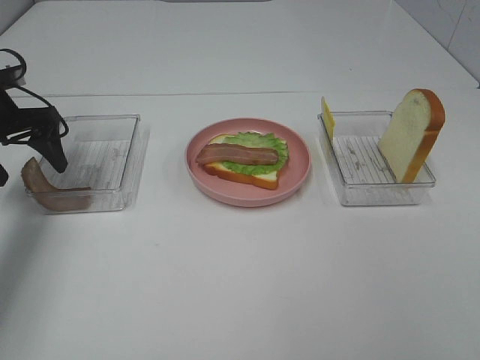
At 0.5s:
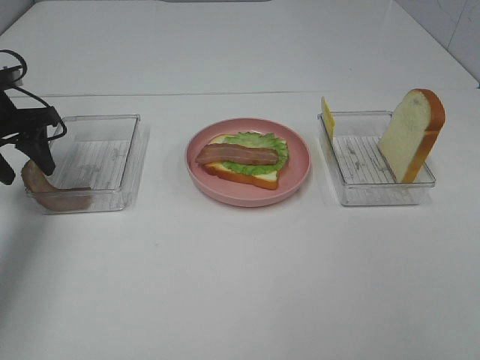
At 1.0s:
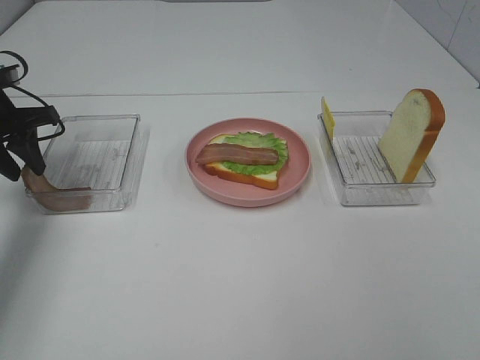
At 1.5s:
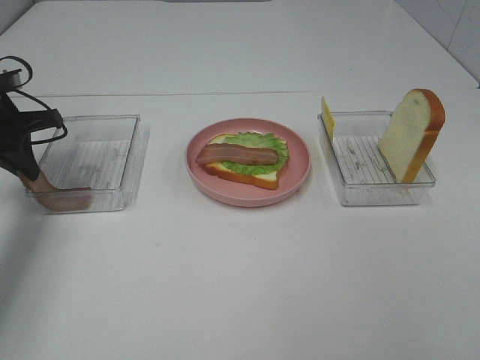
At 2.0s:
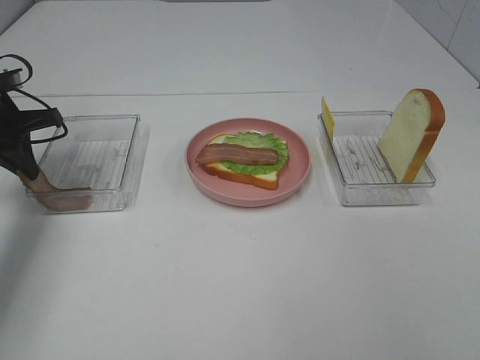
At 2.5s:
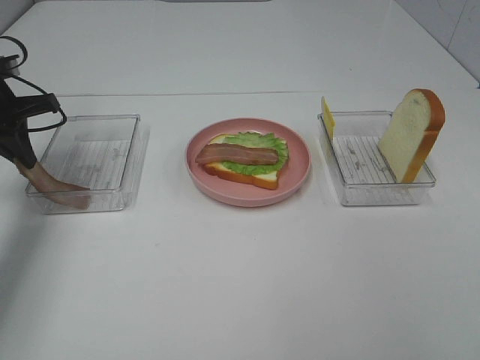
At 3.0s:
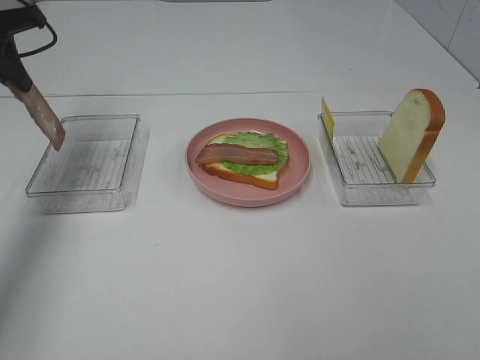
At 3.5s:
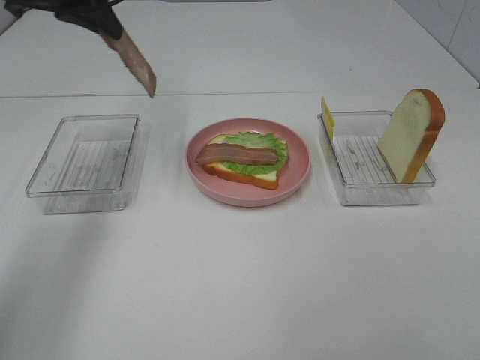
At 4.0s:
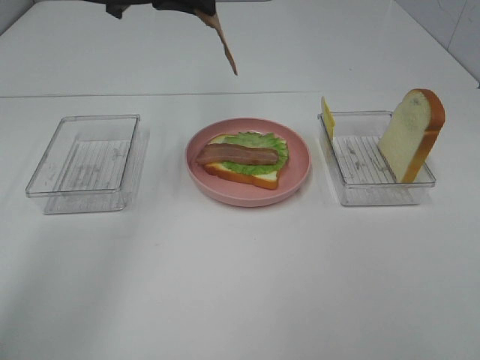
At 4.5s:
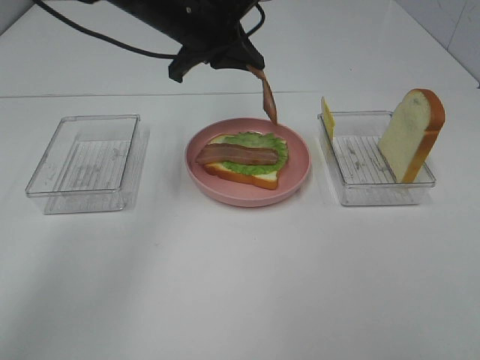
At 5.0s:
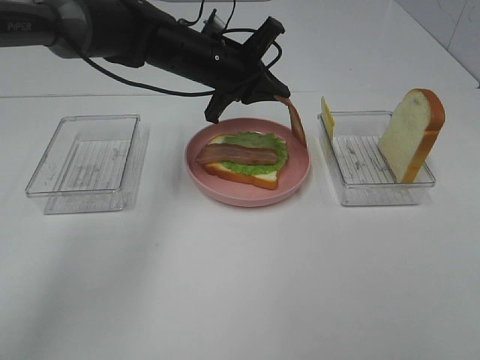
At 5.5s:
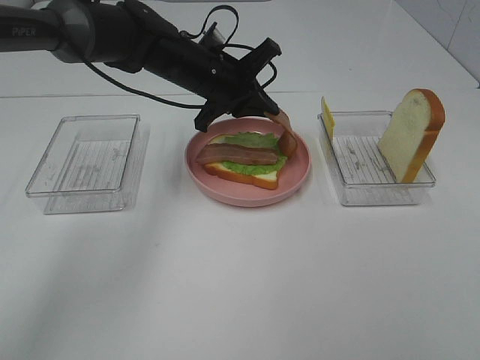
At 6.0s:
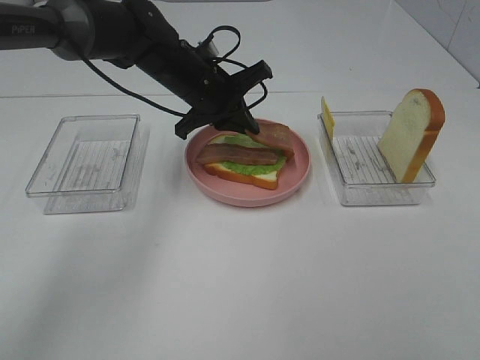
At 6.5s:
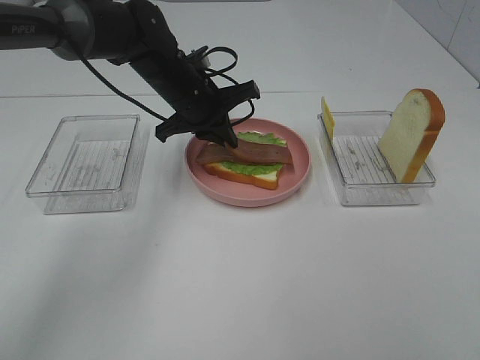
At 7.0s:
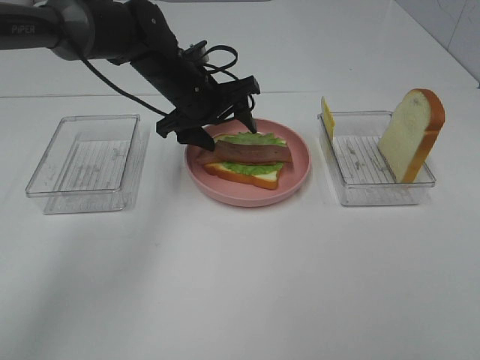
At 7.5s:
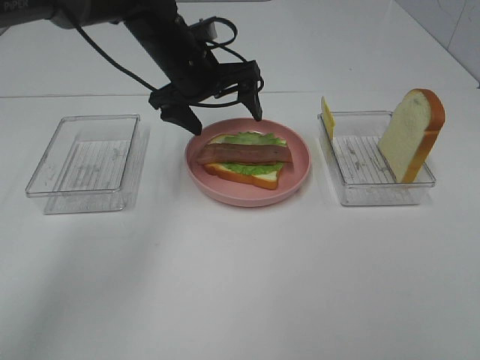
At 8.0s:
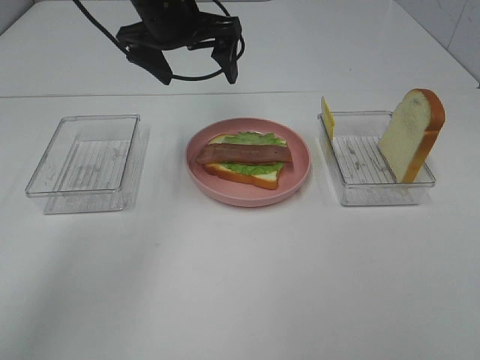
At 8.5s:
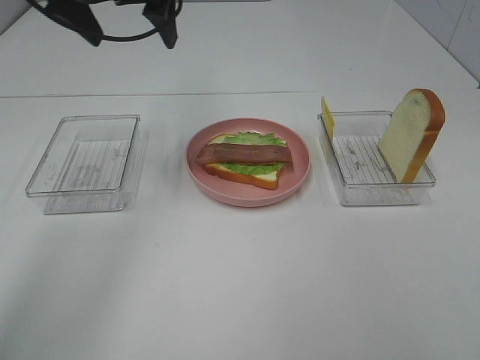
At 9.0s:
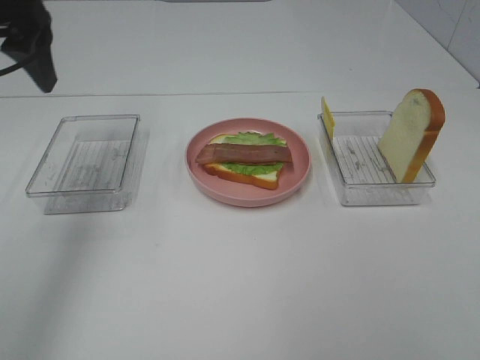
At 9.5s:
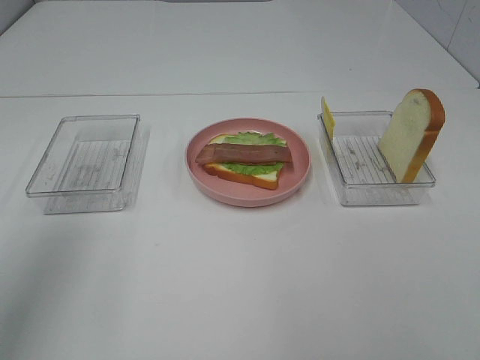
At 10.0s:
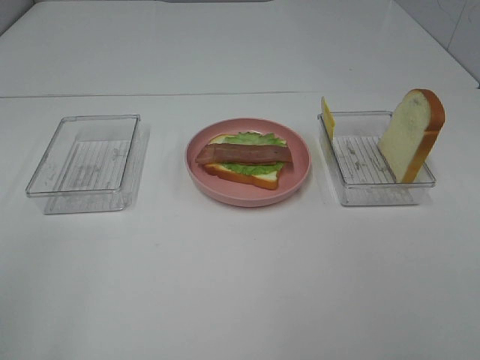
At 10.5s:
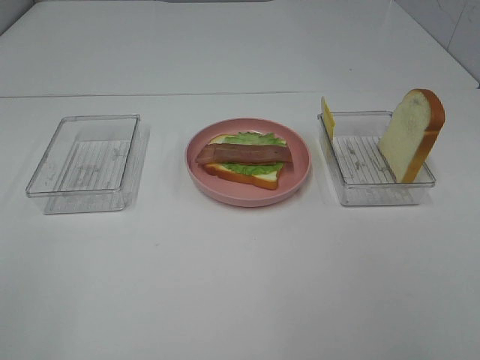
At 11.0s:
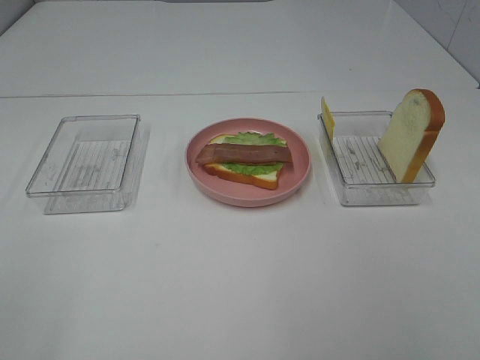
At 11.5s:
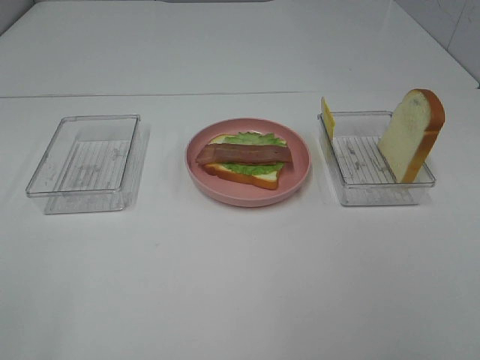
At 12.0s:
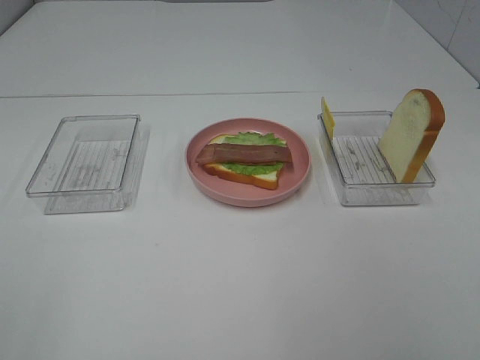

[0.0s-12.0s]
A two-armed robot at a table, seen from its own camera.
Task of the whole recording: Make sandwiches.
Step, 0.0s to 2.0s: Left hand:grab the bacon.
Step, 2.5s to 7.0s: Left hand:place bacon on bacon.
0.0s to 2.0s: The left gripper closes its fingers.
2.0s to 4.0s: The left gripper is displaced to the right and upward by about 25 cm.
4.0s to 6.0s: The left gripper travels downward by some 15 cm.
6.0s to 8.0s: The left gripper shifts approximately 10 cm upward, and opens its fingers.
8.0s to 10.0s: The left gripper is displaced backward and to the left by roughly 50 cm.

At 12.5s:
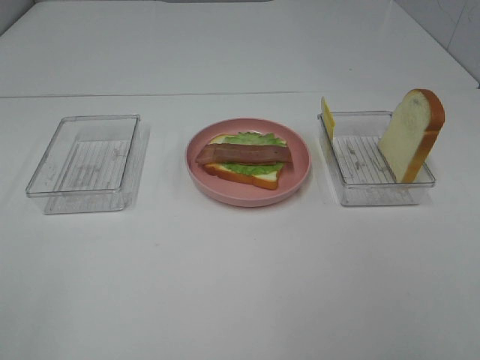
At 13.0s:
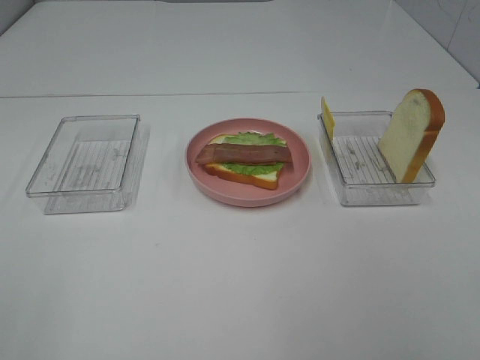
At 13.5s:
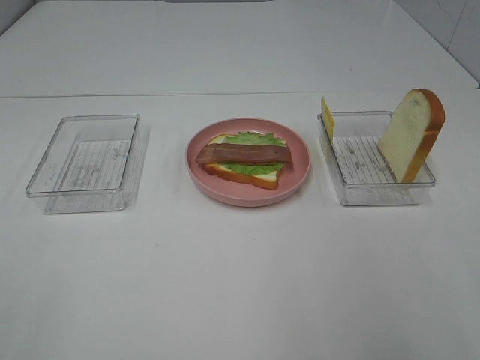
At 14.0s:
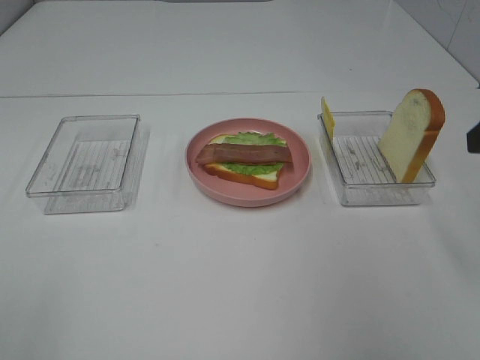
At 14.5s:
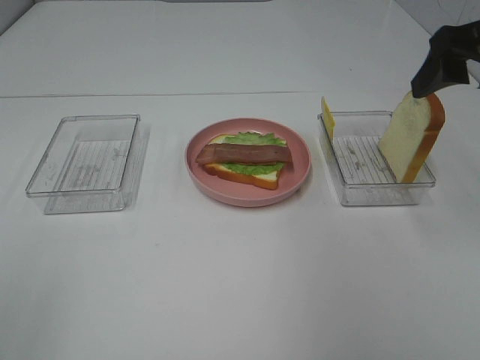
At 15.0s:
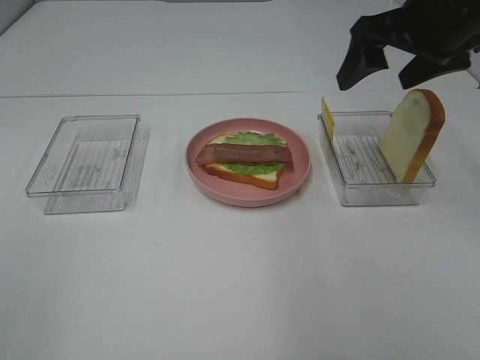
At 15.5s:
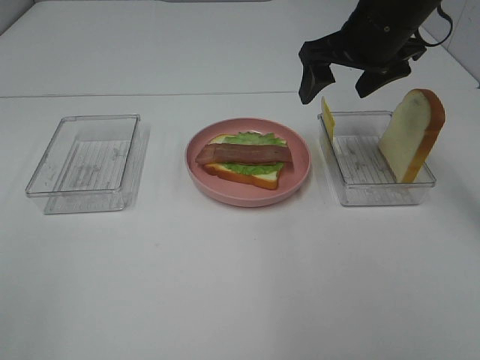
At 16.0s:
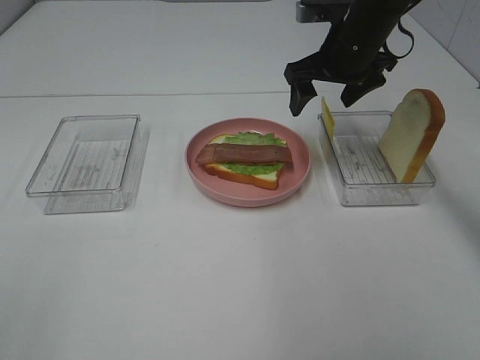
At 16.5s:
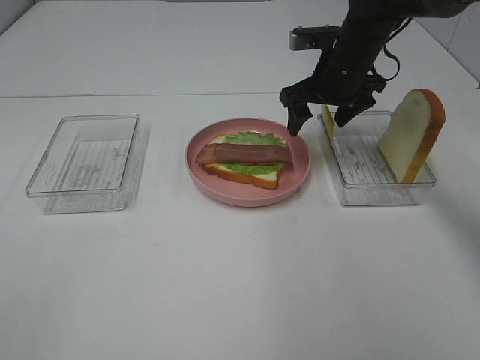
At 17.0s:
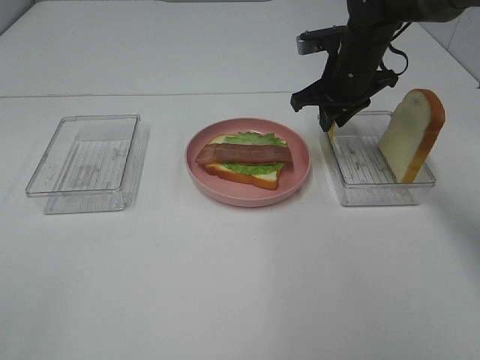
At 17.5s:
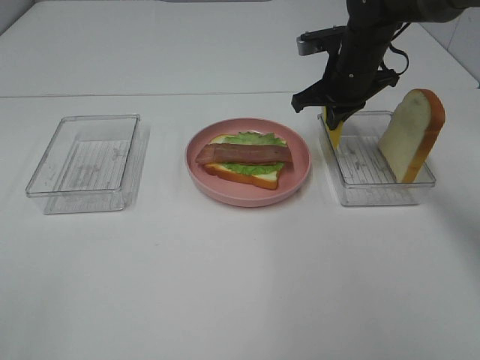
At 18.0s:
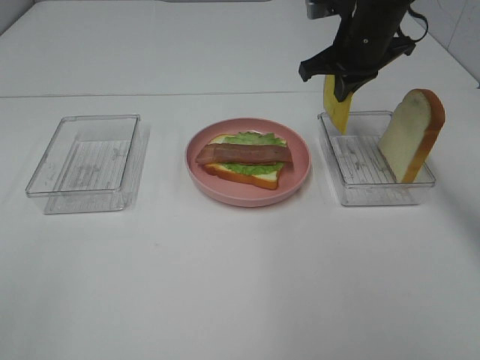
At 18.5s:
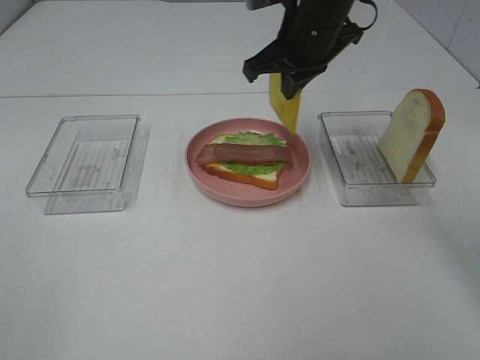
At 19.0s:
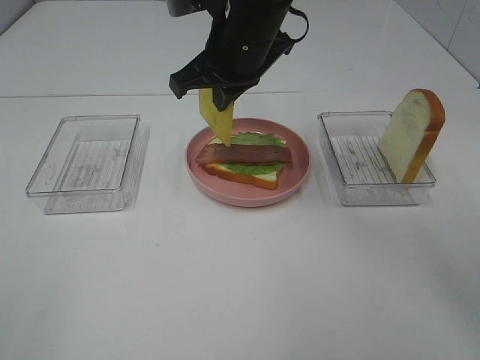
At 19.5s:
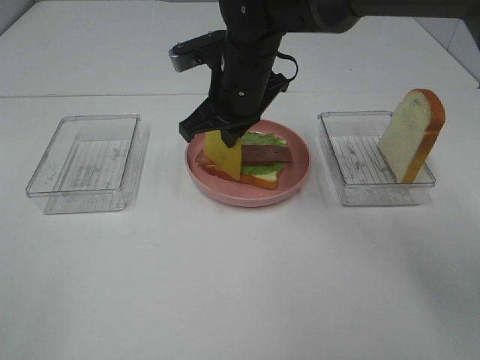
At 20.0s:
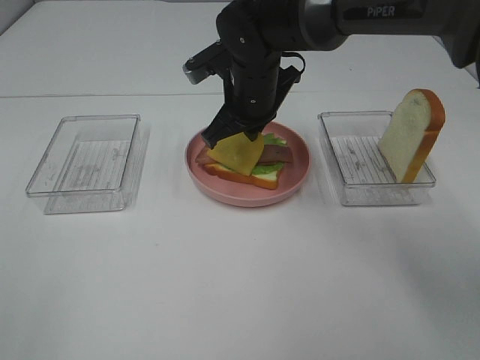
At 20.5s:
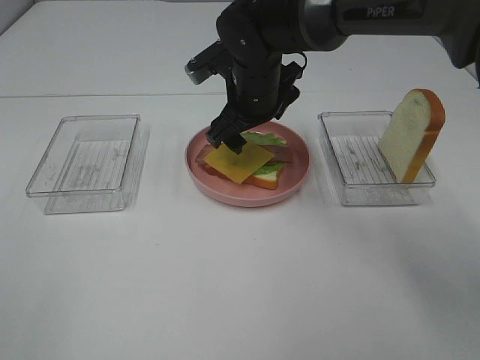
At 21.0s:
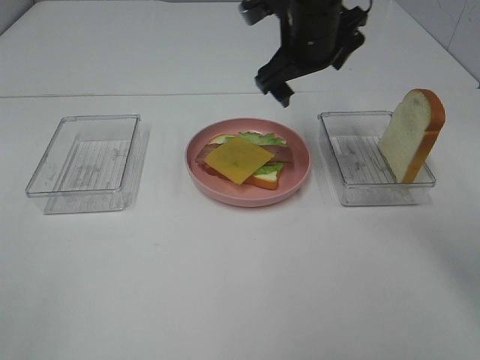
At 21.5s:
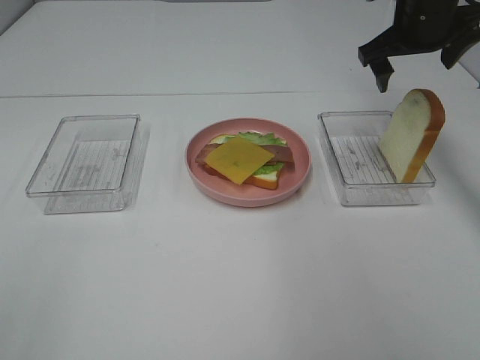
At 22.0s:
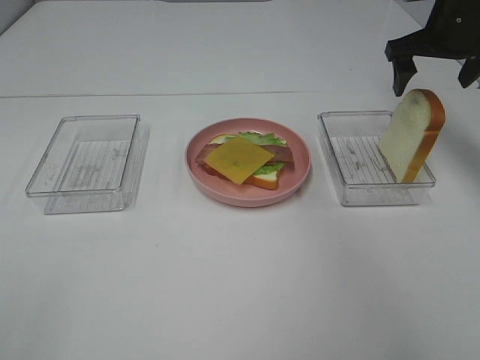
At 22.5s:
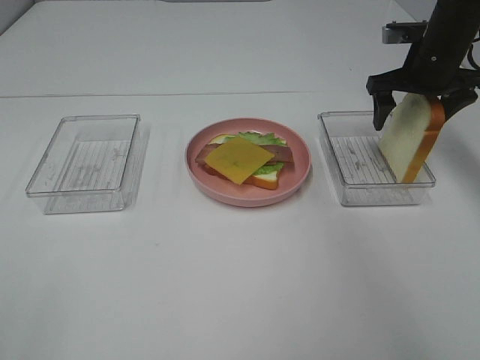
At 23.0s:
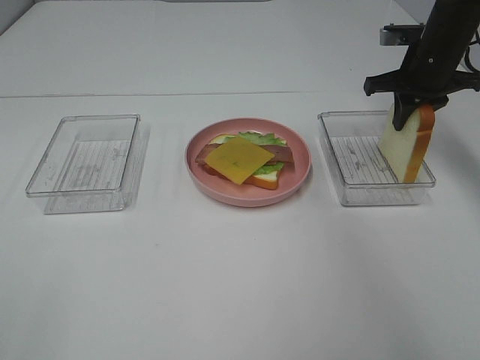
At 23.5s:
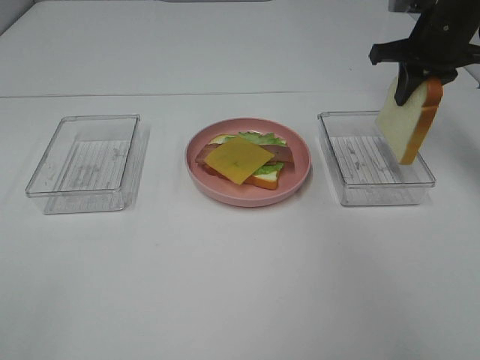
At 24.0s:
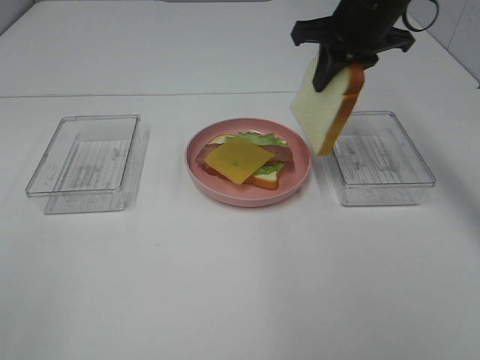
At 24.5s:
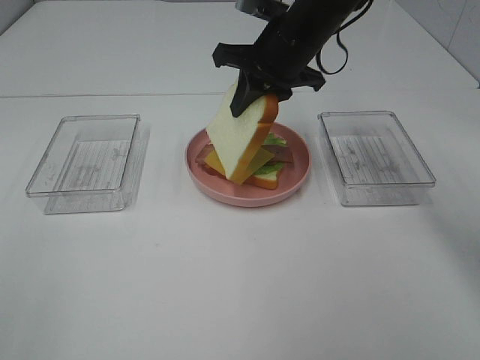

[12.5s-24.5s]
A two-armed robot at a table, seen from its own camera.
Task of the whole recording: Make sandwiches.
Step, 12.5s to 17.5s: Right hand:grab the cheese slice.
Step, 18.0s to 20.5s: Right hand:place the cheese slice on top of the bacon.
Step, 21.0s to 23.0s: Right hand:grab the bread slice.
12.5s to 14.5s: The right gripper moves forward, roughly 30 cm.
14.5s to 16.5s: The right gripper moves forward, downward and to the left, roughly 25 cm.
16.5s to 18.5s: The right gripper goes some 10 cm upward and to the left, and closes up.
18.5s to 20.5s: The right gripper shifts approximately 10 cm downward and to the left, and opens up.
20.5s to 22.5s: The right gripper goes some 25 cm to the right.
22.5s to 24.5s: The right gripper goes some 20 cm to the left, and closes up.

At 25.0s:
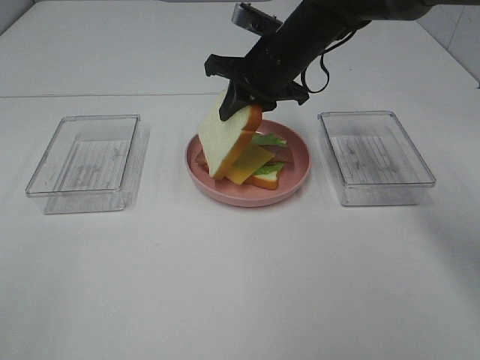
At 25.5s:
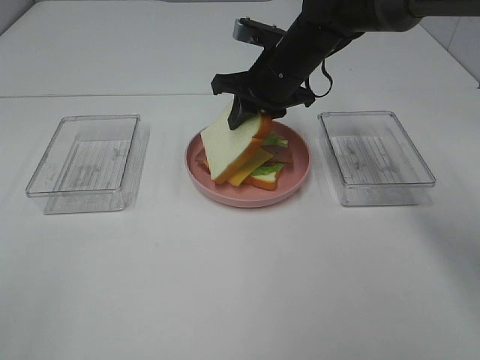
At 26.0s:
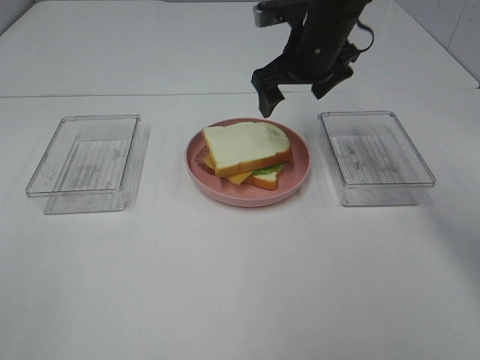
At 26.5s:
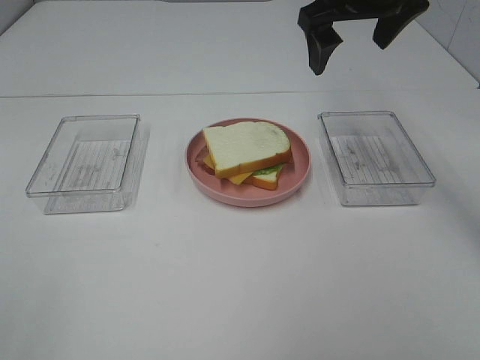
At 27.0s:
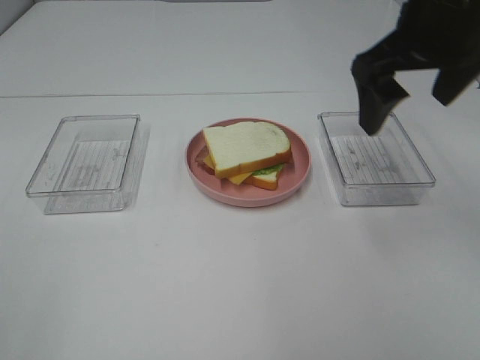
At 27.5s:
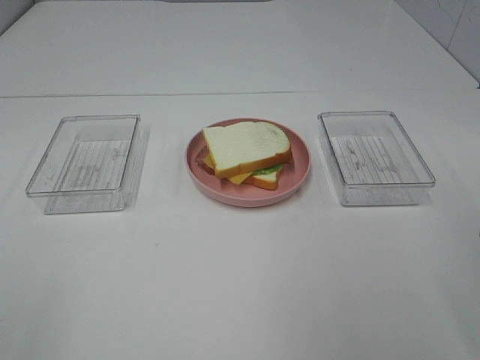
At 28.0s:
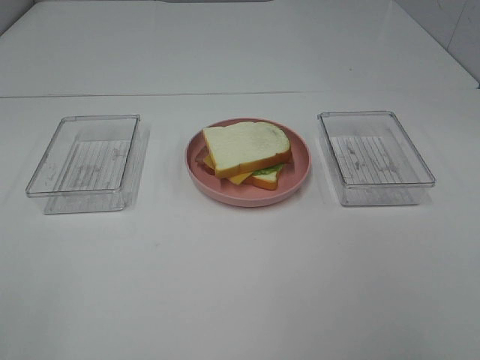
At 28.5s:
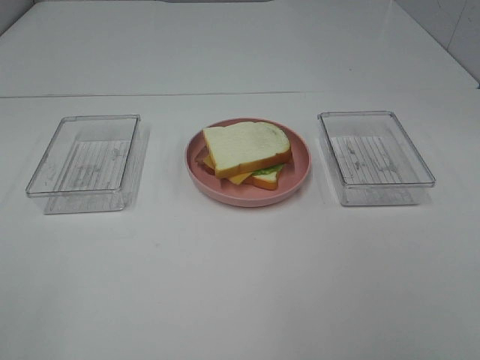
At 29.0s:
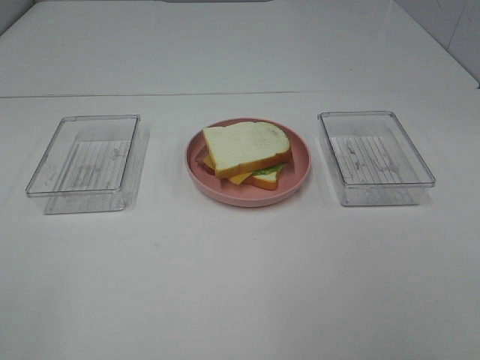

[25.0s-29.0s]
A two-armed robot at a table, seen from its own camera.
Task of the whole recording: Make sandwiches.
25.0s to 27.0s: The right gripper shifts roughly 20 cm backward, upward and to the right, and opens.
27.0s to 29.0s: The right gripper heads backward, covering approximately 30 cm.
